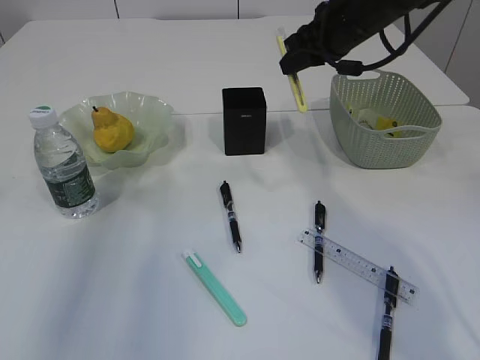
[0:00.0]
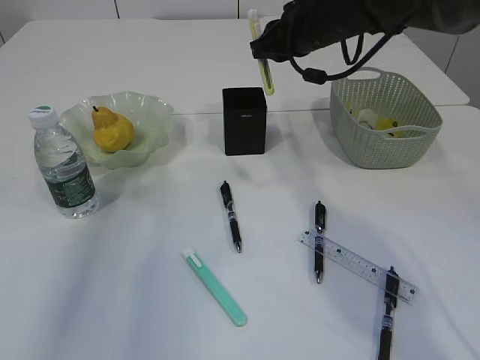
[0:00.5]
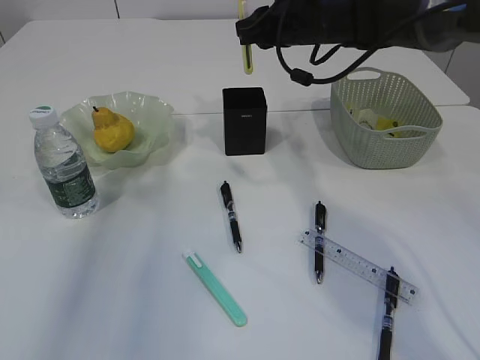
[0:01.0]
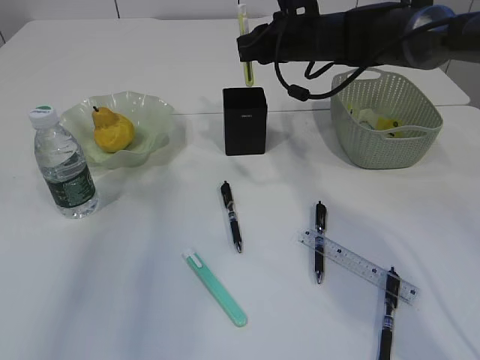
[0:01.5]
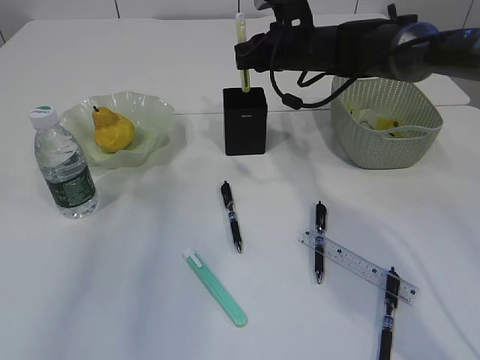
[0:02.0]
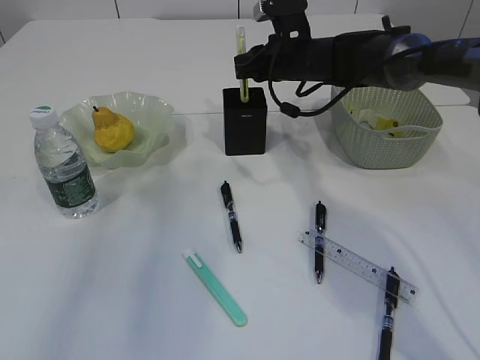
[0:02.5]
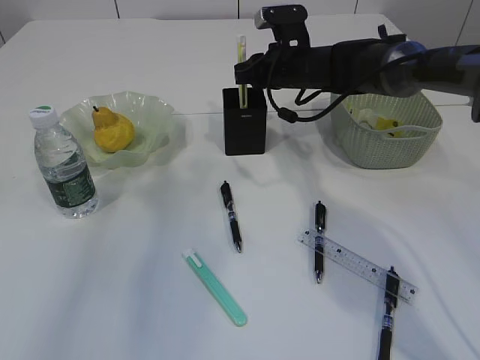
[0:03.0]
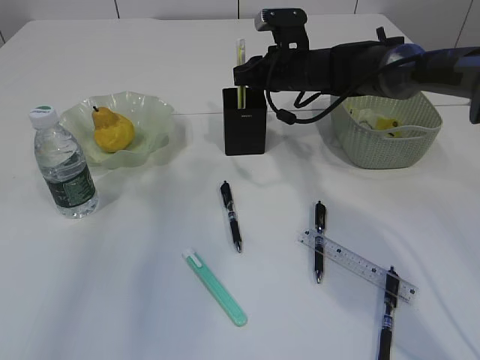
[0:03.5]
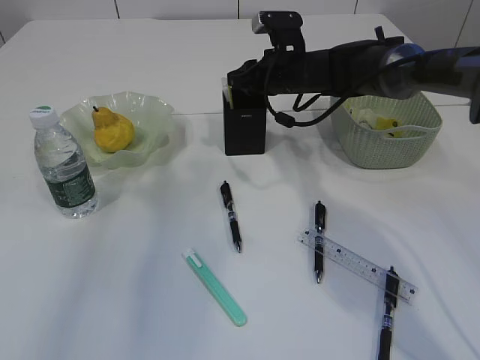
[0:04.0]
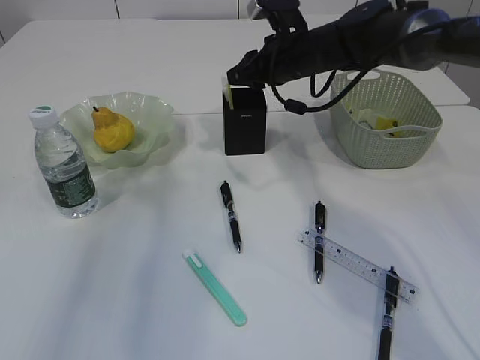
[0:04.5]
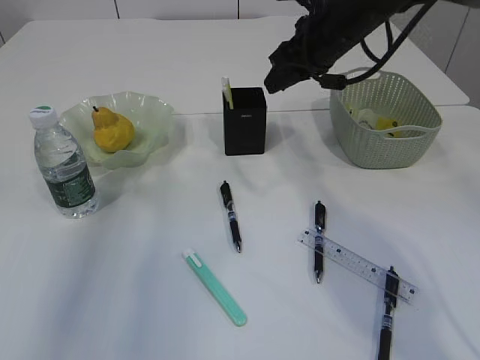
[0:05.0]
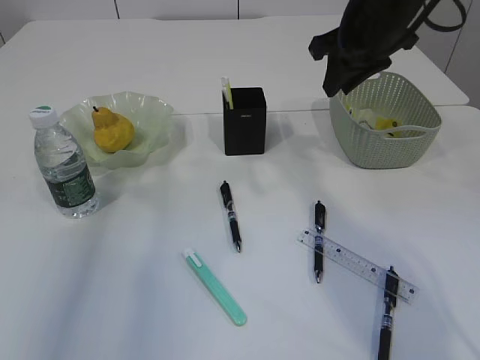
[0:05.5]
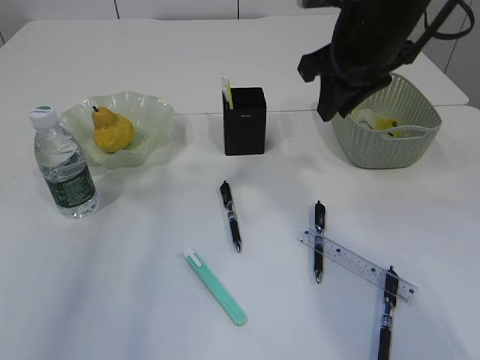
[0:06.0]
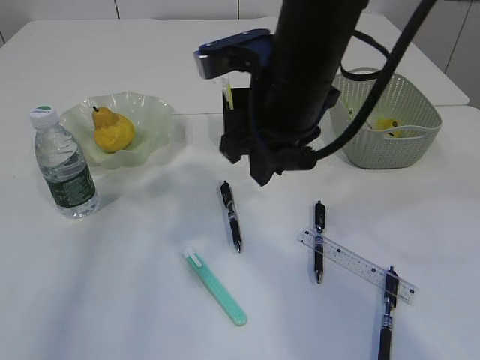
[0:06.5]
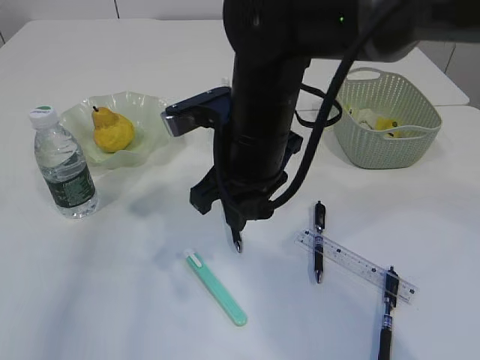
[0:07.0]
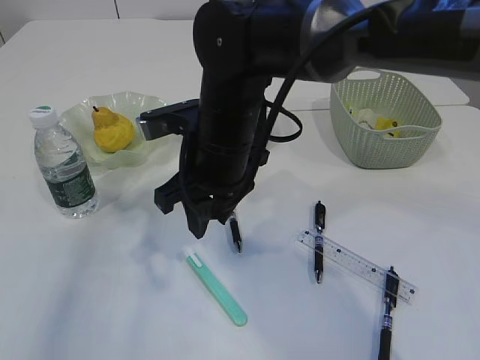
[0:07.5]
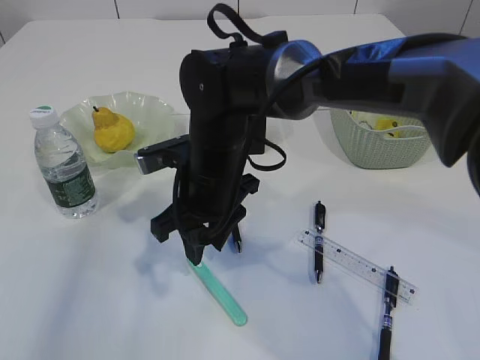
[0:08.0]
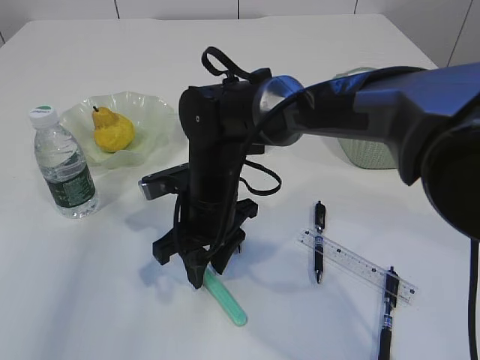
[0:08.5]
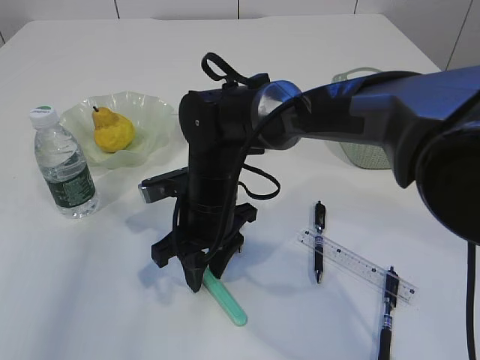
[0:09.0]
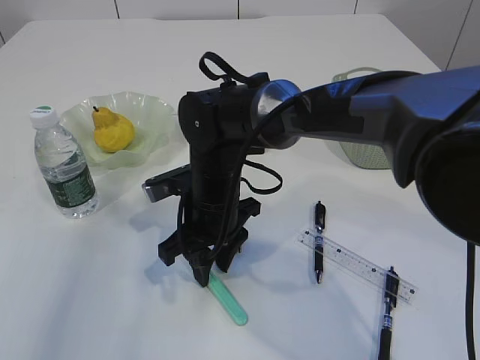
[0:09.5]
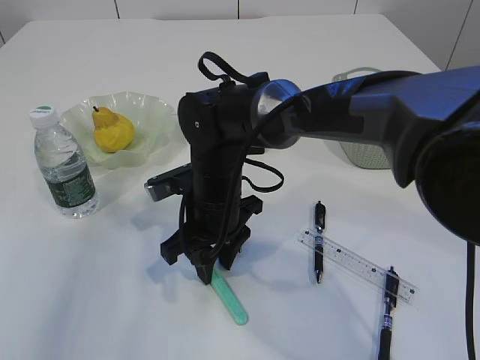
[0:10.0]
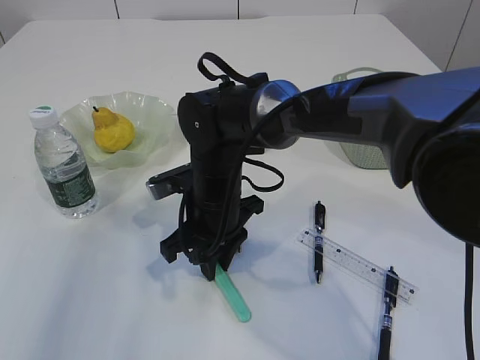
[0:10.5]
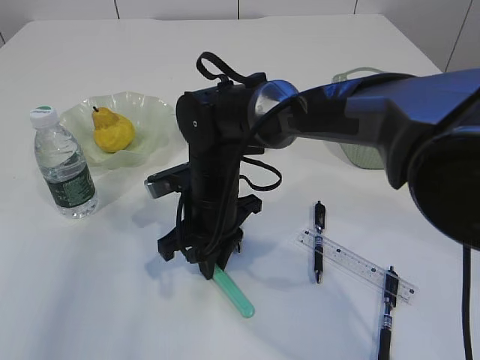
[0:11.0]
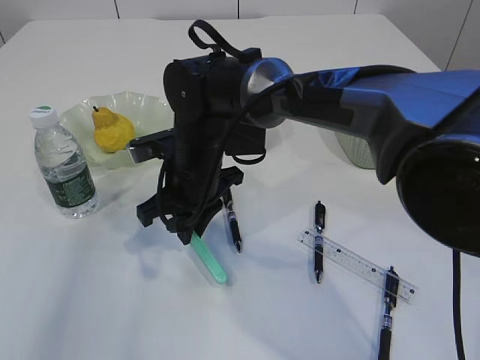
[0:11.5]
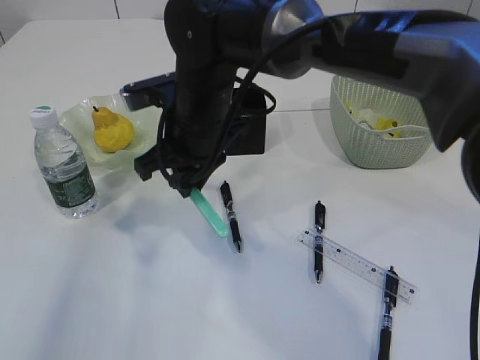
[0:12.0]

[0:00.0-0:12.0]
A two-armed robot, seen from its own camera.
Step, 0:00.0 to 0:04.5: place the yellow knife into the pen holder.
Step, 0:05.0 to 0:11.5: pick up the blue knife.
0:00.0 to 0:02.0: The right gripper travels downward, forward and to the left by some 10 cm.
0:02.0 to 0:04.0: The grippers stay close to where they were, moving slightly.
0:04.0 to 0:06.0: The right gripper heads backward and upward, covering approximately 20 cm.
0:06.0 to 0:08.0: The right gripper heads to the left and downward, covering some 20 cm.
0:10.0 to 0:12.0: The right gripper shifts approximately 10 cm upward, and closes.

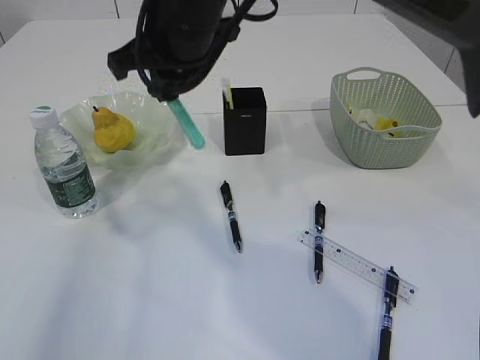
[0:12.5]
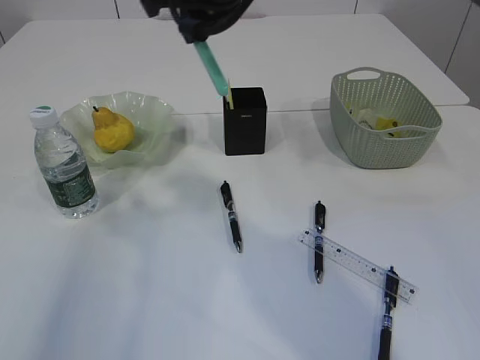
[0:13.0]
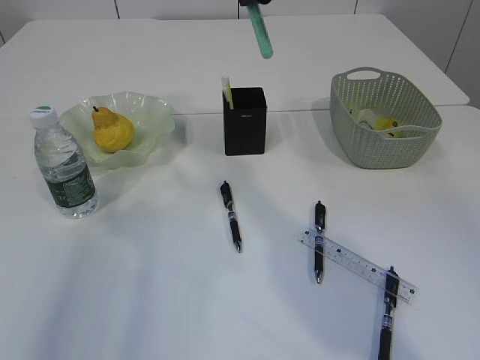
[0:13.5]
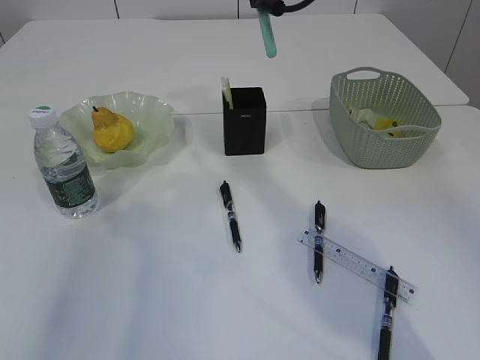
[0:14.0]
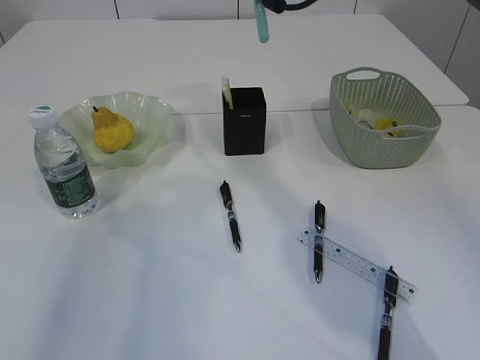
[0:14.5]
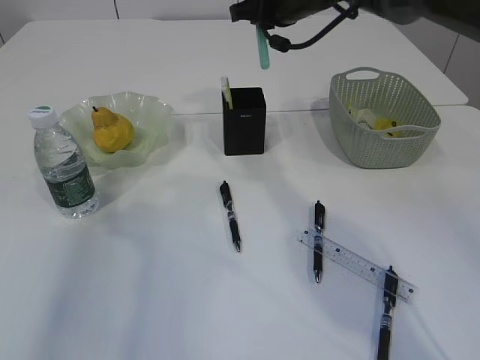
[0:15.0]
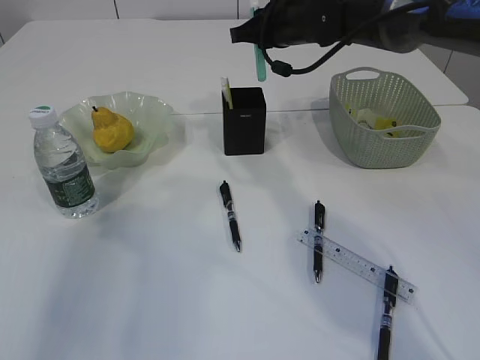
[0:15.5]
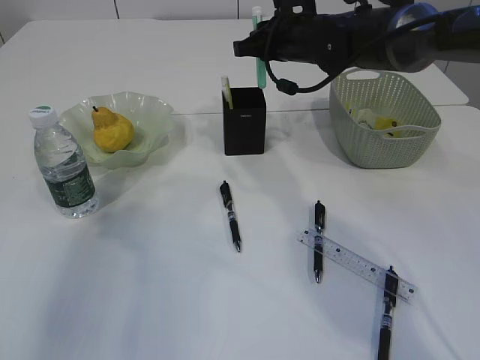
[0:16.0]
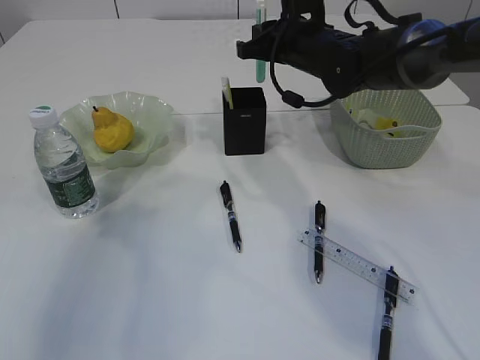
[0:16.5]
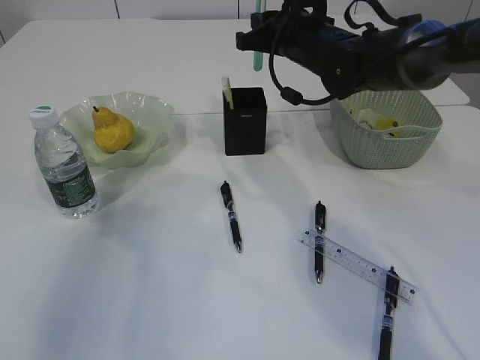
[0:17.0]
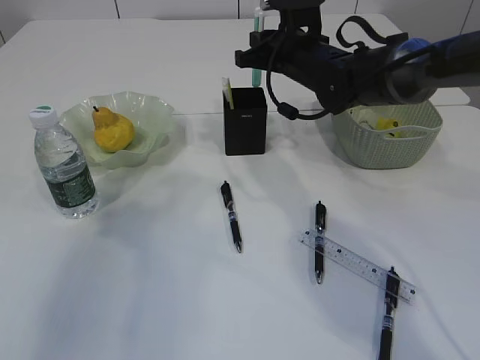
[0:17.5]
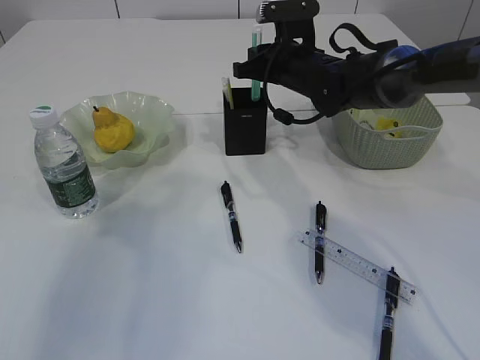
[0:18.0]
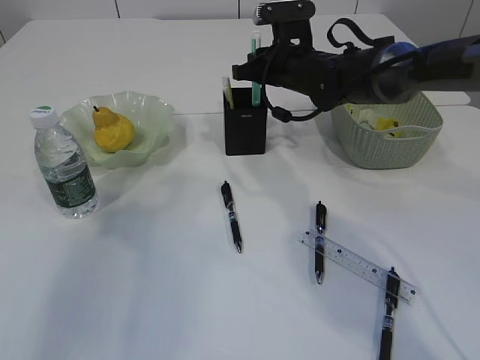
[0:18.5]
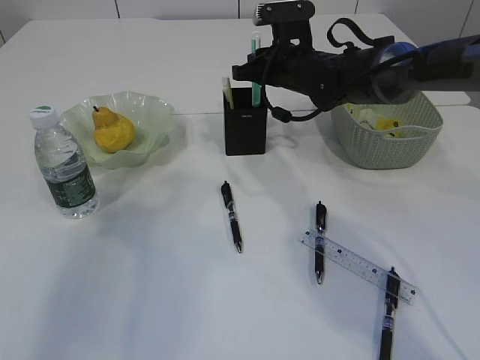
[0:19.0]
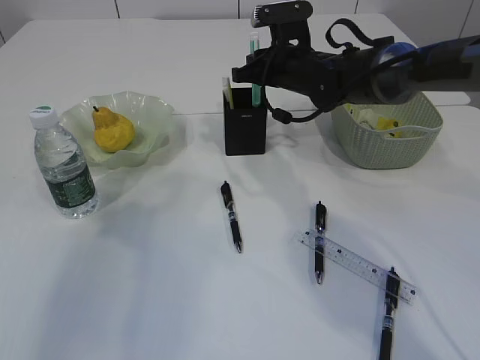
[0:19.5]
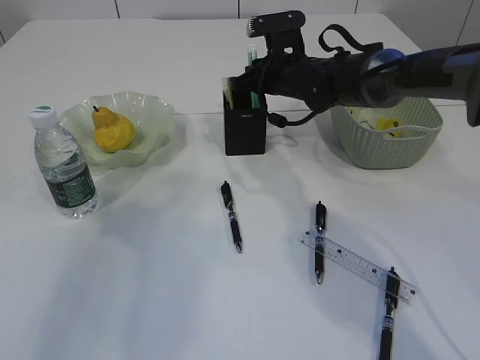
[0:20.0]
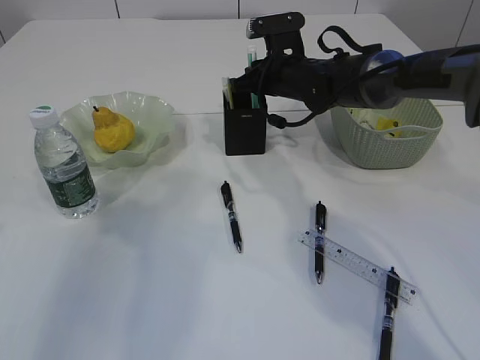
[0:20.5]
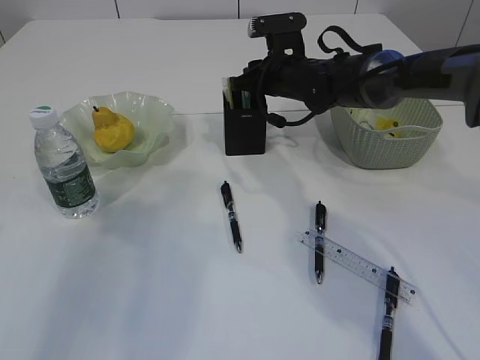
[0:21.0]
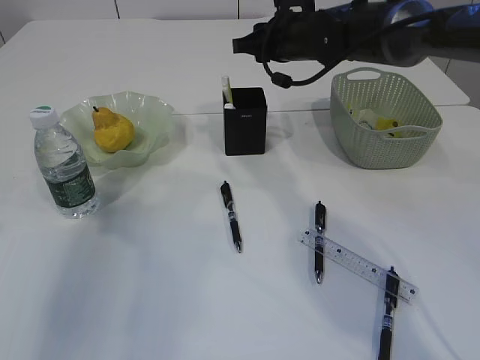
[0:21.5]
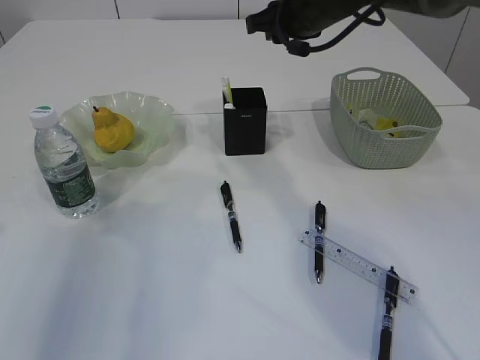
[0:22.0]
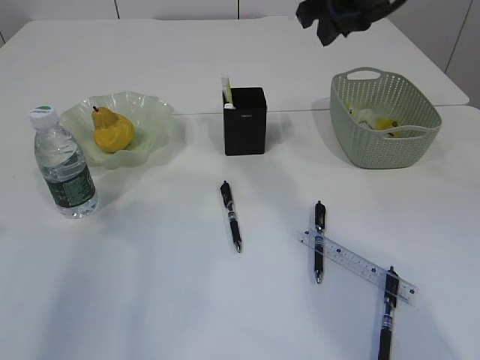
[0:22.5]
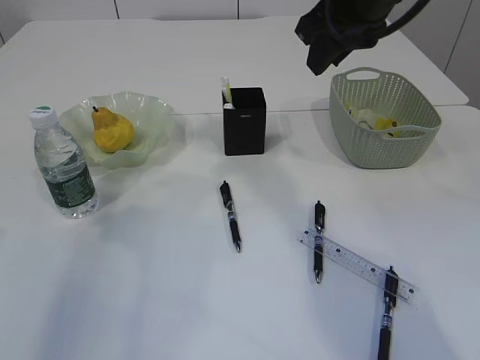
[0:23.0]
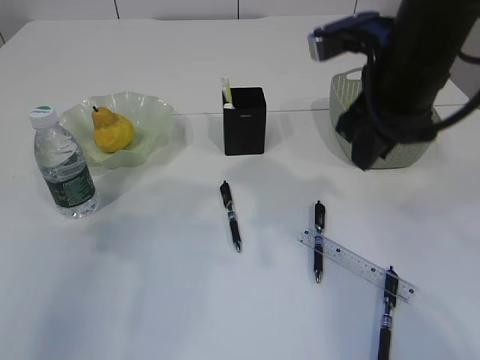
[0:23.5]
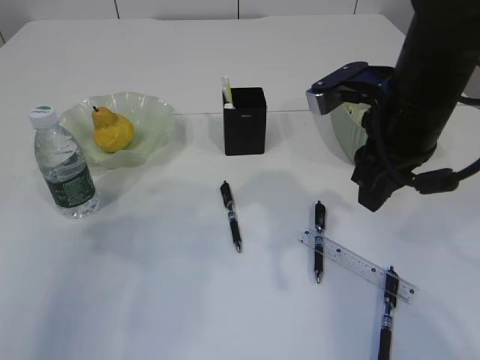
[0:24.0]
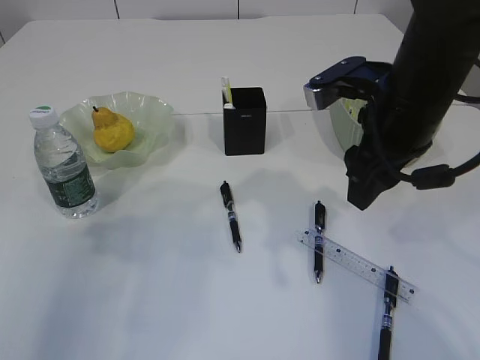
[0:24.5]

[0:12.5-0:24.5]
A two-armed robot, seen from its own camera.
Step, 0:12.5 to 0:21.5: Place the blue knife into the pen holder.
0:12.5 to 0:14.5: The right gripper shifts some 15 cm to the right and forward.
0:14.5 to 0:16.5: The right gripper is displaced downward by approximately 10 cm.
0:16.5 to 0:18.5: The grippers make only small movements.
0:18.5 to 0:20.5: The grippers stay close to where they were, moving slightly.
0:20.5 to 0:22.5: The right gripper is displaced upward and backward by about 20 cm.
0:22.5 to 0:24.5: The right gripper heads backward and downward, covering roughly 15 cm, and opens up.

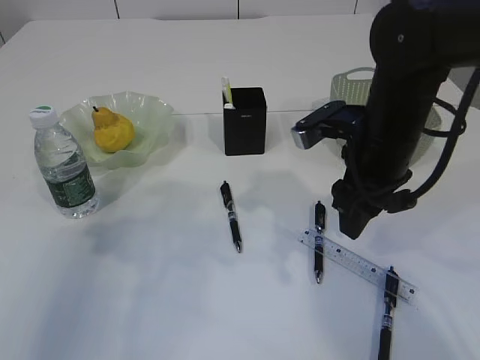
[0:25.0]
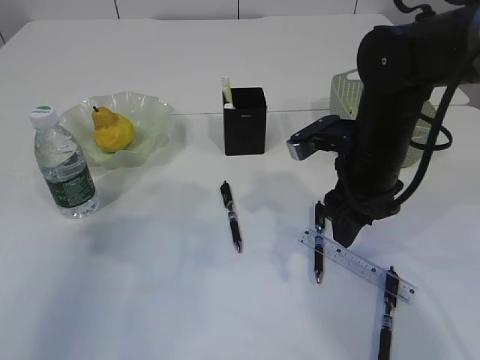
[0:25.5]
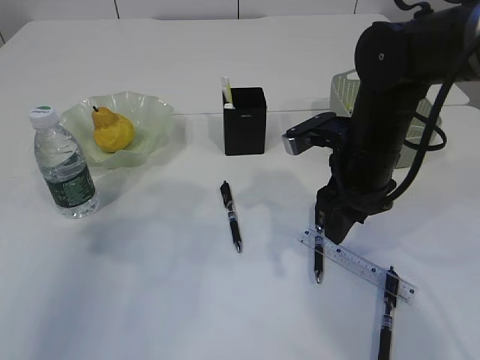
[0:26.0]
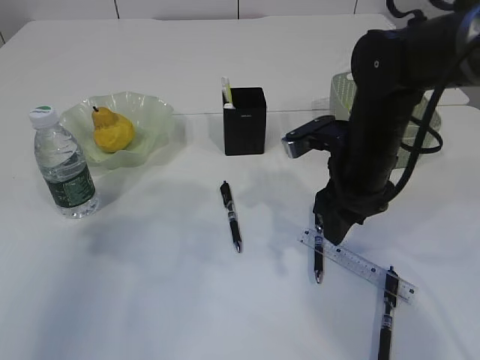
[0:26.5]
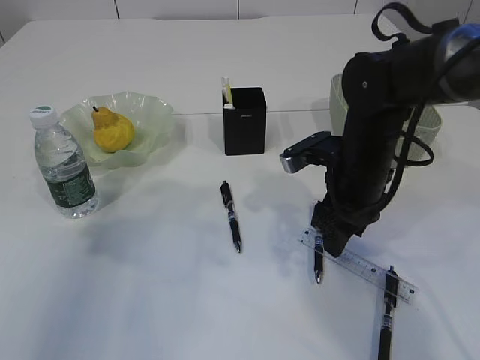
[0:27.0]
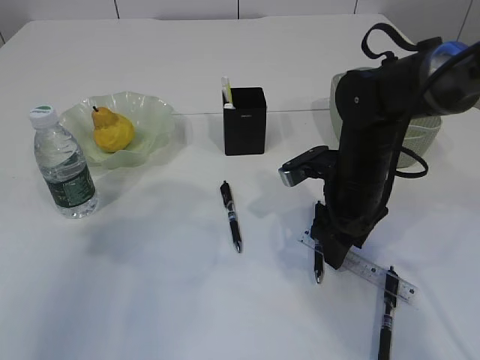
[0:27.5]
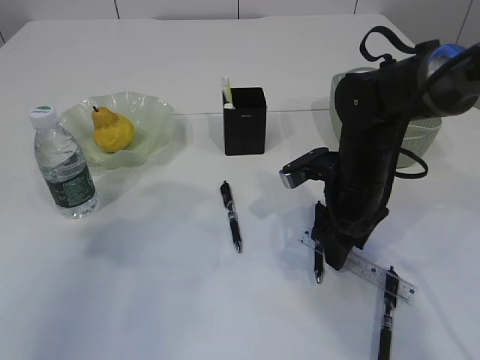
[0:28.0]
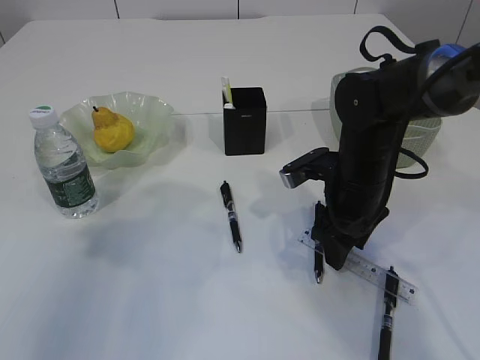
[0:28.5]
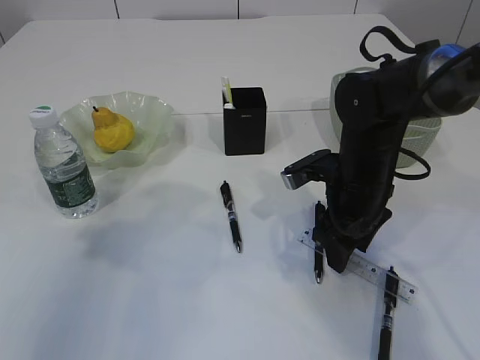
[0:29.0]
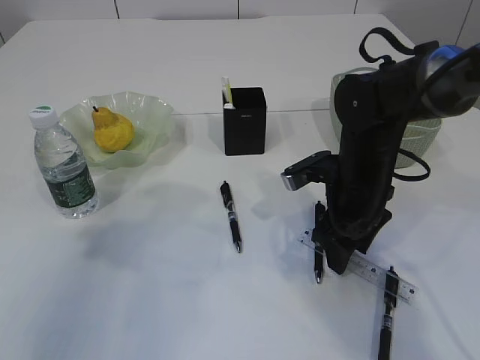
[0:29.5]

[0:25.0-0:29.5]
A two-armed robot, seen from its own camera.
0:25.0 to 0:27.0: The right gripper travels downward by approximately 5 cm.
0:27.0 to 0:29.5: The grippers make only small movements.
